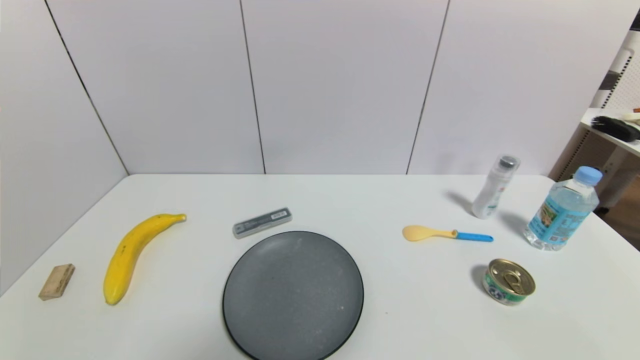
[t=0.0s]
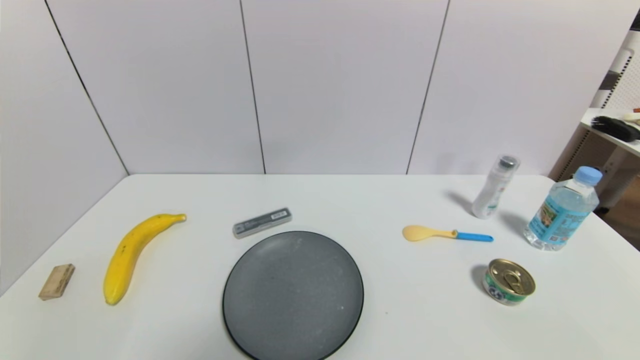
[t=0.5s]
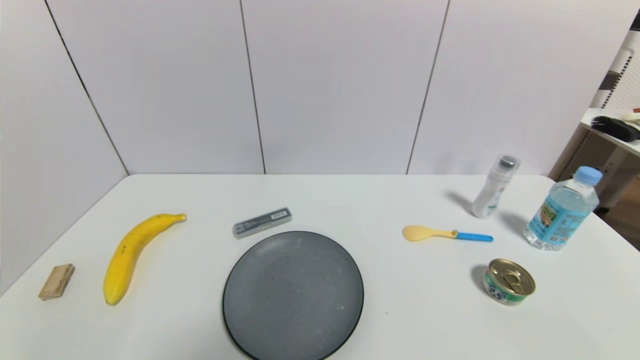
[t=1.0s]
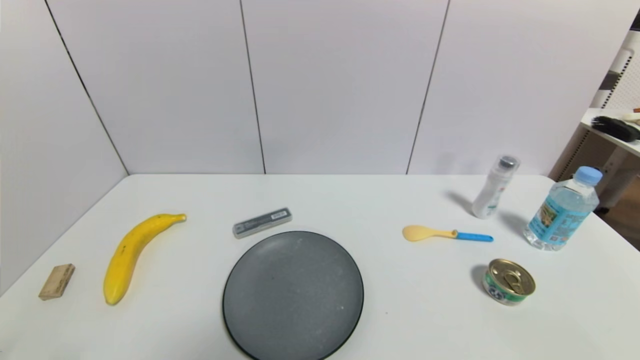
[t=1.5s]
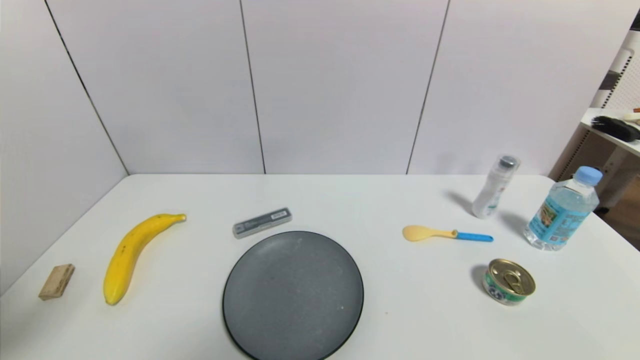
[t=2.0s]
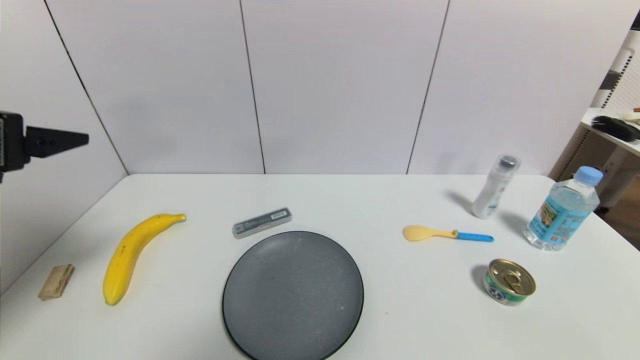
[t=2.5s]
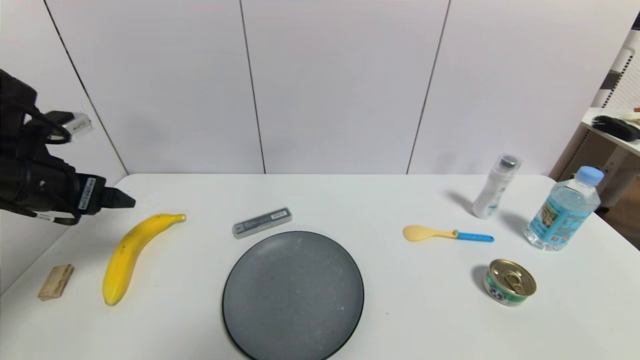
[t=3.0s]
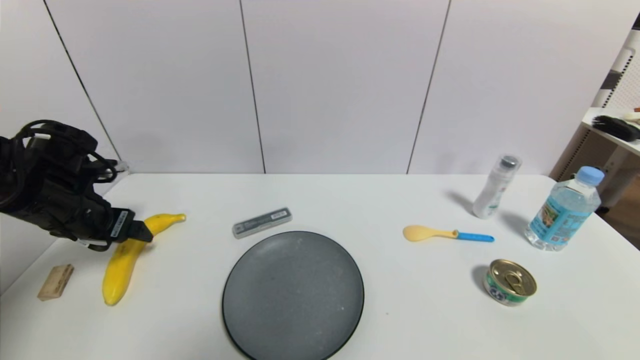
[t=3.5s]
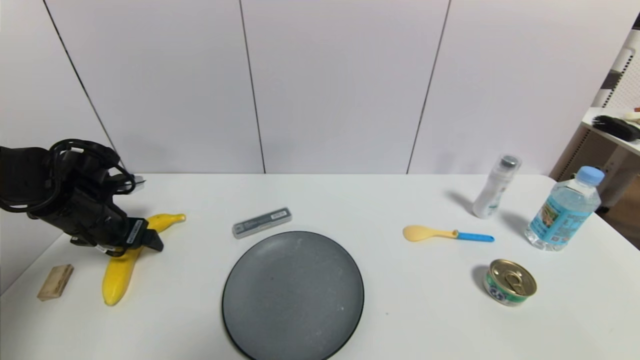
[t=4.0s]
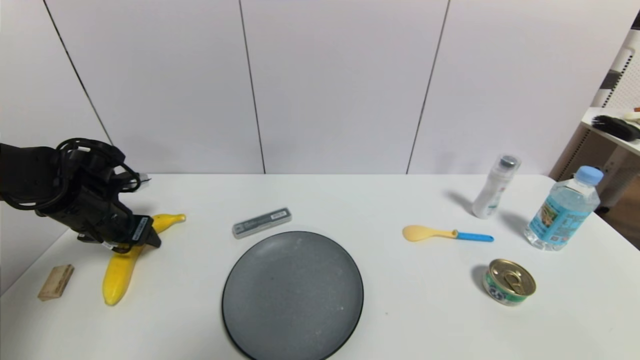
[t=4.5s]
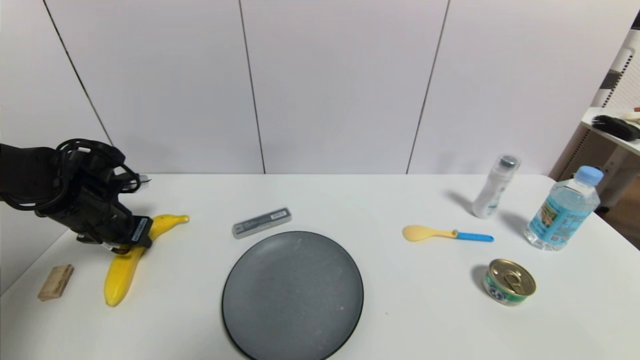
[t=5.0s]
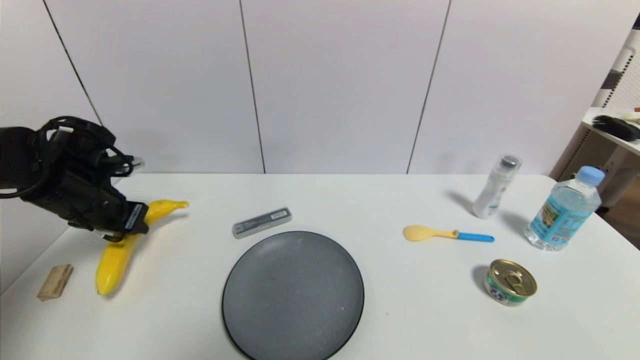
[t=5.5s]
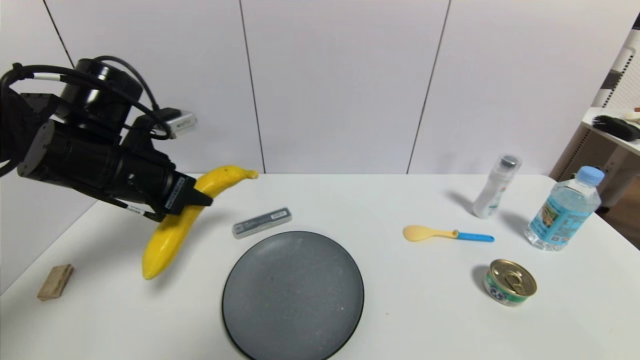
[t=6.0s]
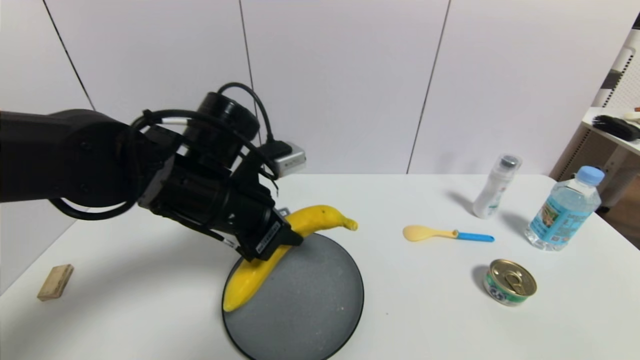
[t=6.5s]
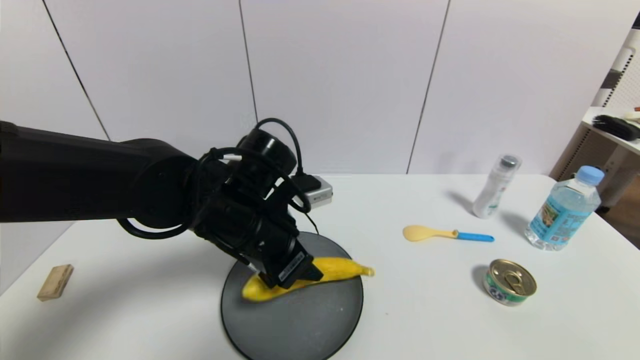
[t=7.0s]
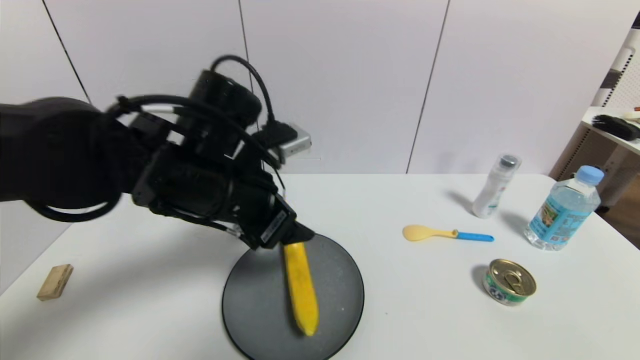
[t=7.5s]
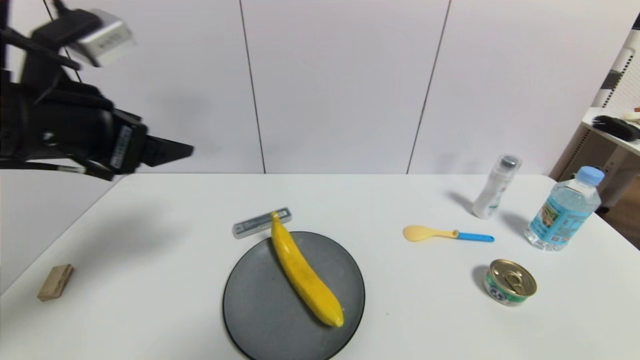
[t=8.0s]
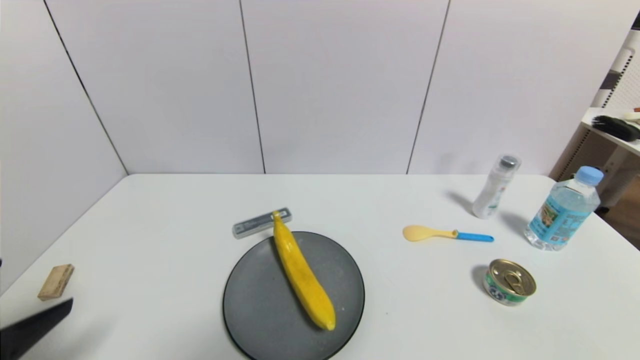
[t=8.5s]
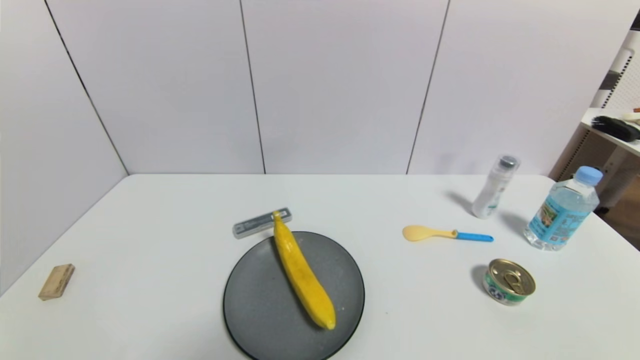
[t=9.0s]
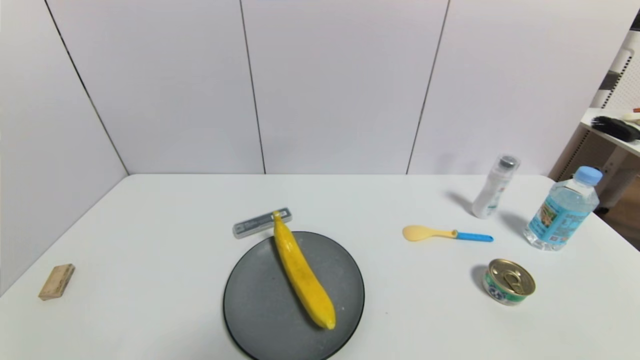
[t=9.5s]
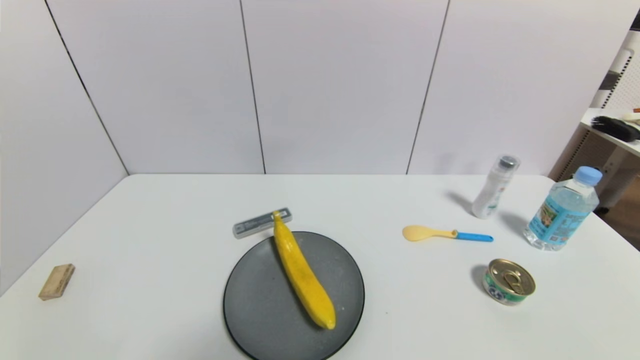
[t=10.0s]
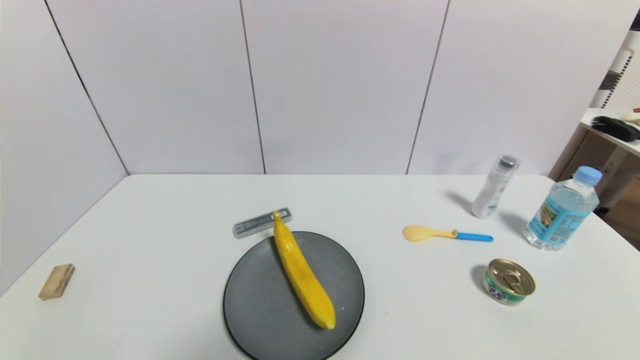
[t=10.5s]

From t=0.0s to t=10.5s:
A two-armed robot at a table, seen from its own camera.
Task of the whole recording: use a gripper to pick the target object and place on the gray plate.
Step, from t=0.0s to t=5.0s: Grasp the banana with the left gripper.
Step, from t=5.5s to t=7.5s: Place the banana on the gray plate with the left gripper.
From t=0.0s to t=2.0s: The left gripper goes roughly 25 cm upward.
From t=2.0s to t=4.0s: The left gripper goes approximately 35 cm forward and downward.
From t=4.0s to t=6.5s: The left gripper is displaced to the right by about 25 cm, and closes its fingers.
From t=6.5s to t=8.5s: The left gripper shifts approximately 30 cm backward and to the left, and opens up.
From t=8.5s to t=10.5s: The left gripper moves downward and backward, about 15 cm.
